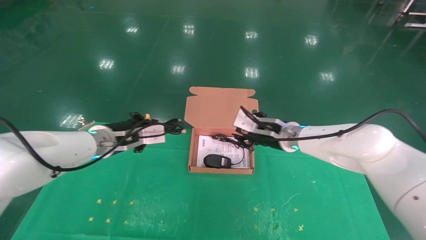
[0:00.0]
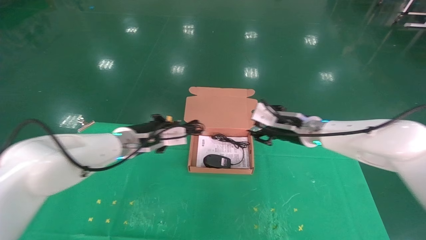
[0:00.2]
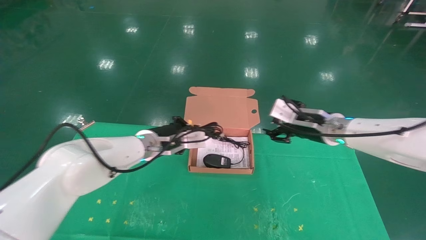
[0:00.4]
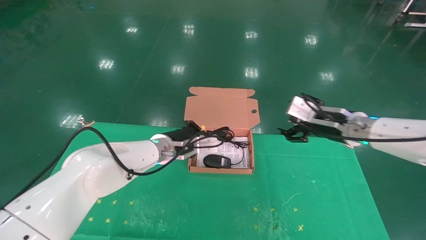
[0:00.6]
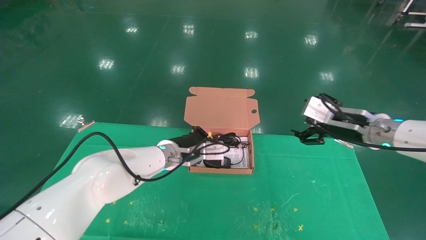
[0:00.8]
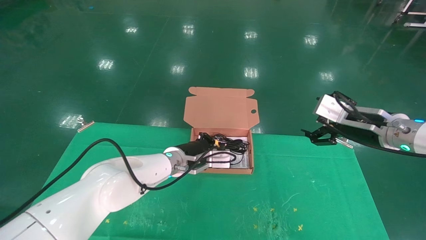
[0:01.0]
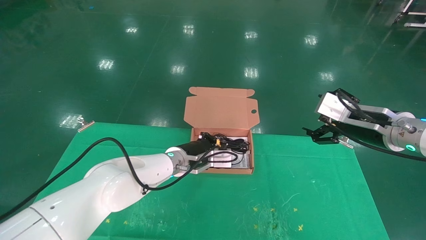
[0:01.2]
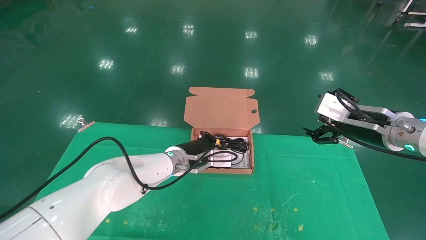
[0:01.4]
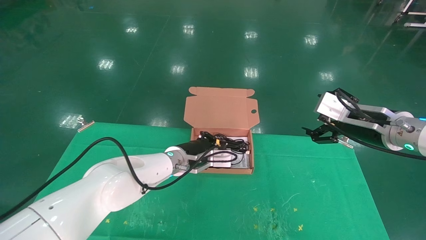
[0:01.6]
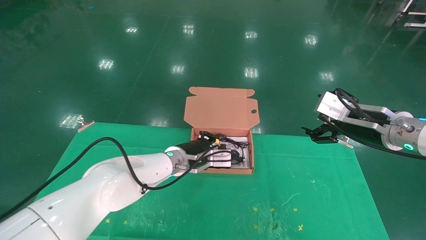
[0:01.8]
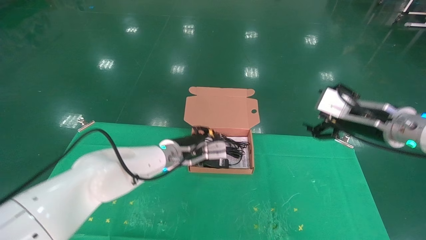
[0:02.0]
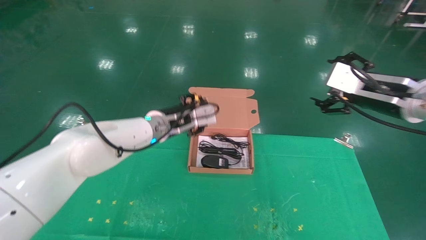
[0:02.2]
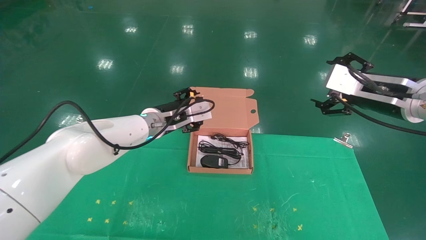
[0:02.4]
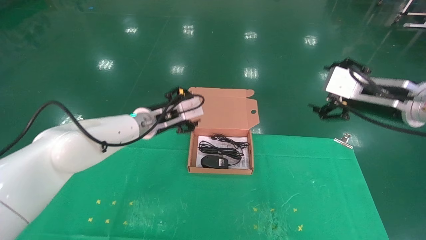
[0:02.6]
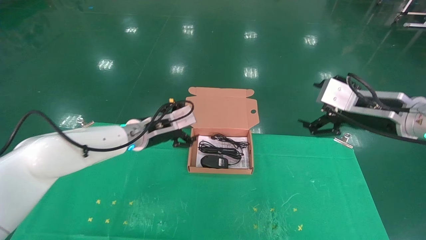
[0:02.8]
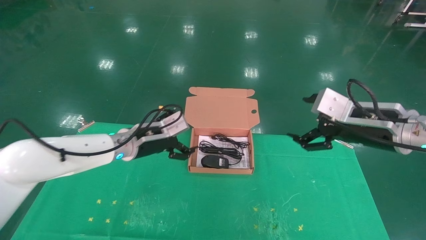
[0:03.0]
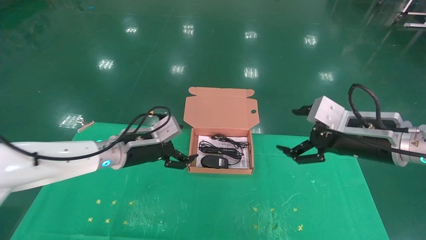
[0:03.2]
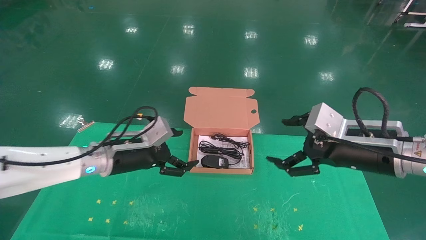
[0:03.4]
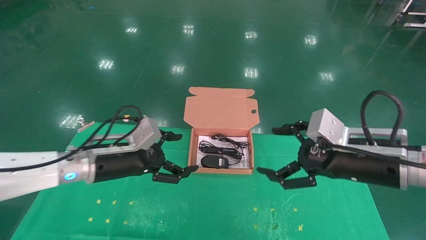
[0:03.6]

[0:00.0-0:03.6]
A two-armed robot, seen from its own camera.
Task of the whole recording: grasp data cable left put into box grasp mouse right put into box.
0:00.0 to 0:01.8: The left gripper is displaced to the right and downward by roughly 15 cm. Meanwhile the right gripper is displaced to the right, backward and upward by some 20 cm, and opens.
0:01.8 to 0:03.6: The left gripper shifts about 15 cm to the left and backward, and opens up, while the right gripper is displaced backward and to the left by roughly 10 cm.

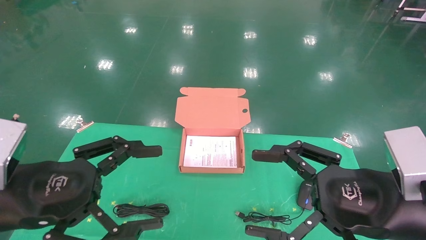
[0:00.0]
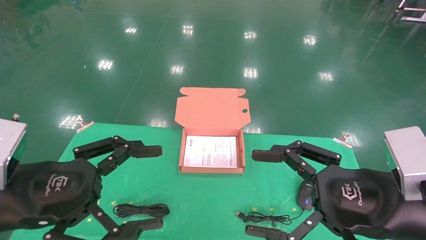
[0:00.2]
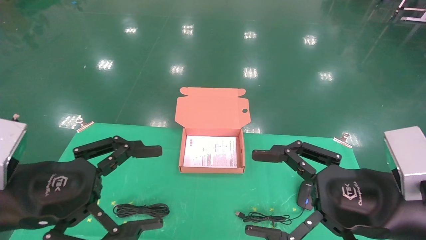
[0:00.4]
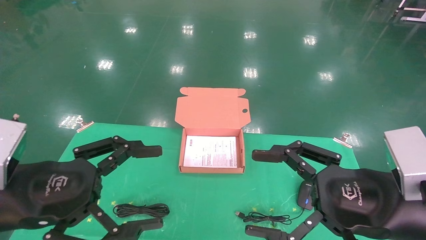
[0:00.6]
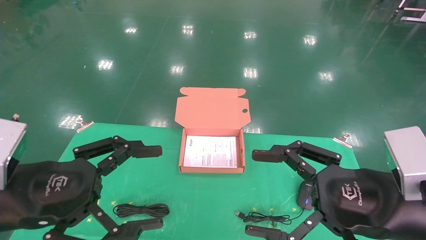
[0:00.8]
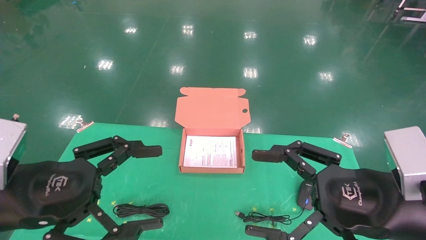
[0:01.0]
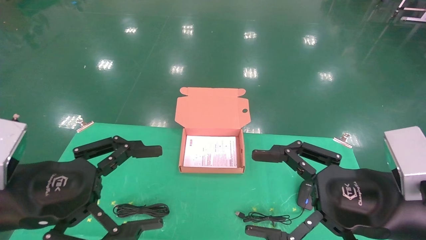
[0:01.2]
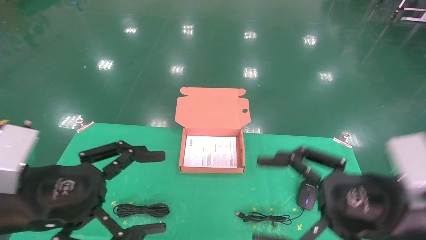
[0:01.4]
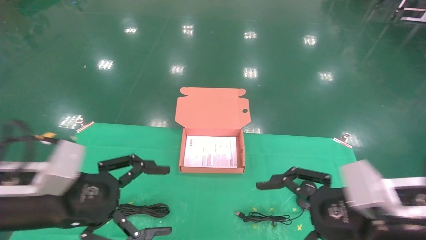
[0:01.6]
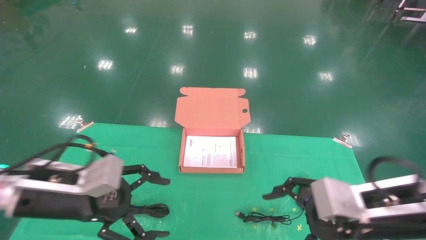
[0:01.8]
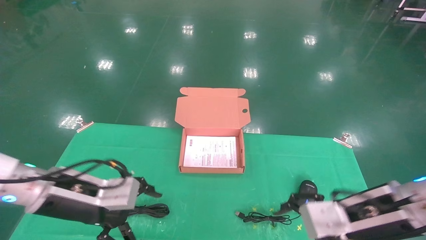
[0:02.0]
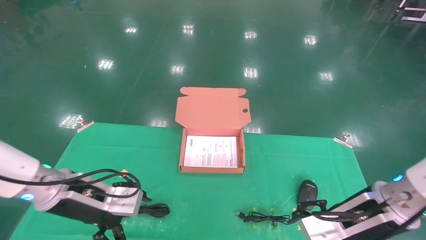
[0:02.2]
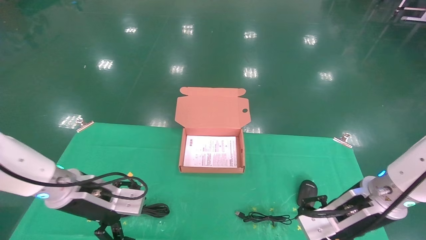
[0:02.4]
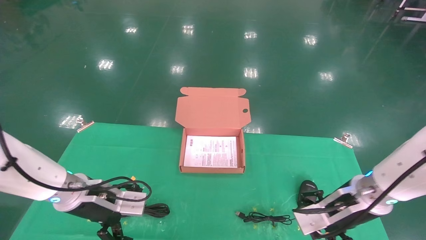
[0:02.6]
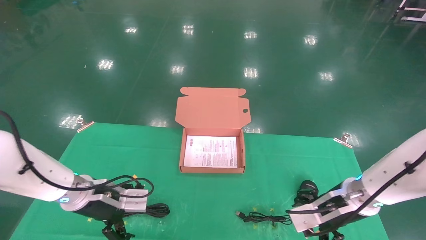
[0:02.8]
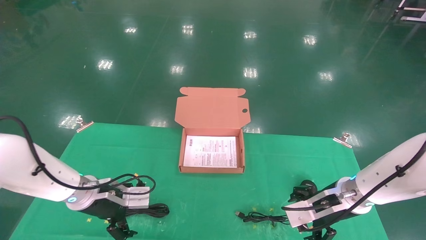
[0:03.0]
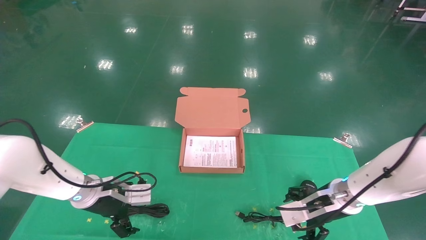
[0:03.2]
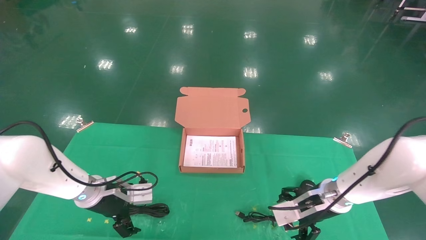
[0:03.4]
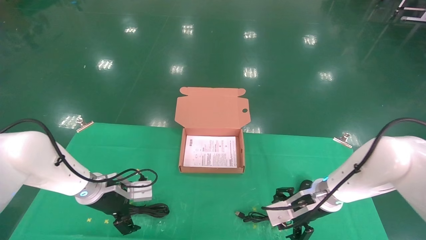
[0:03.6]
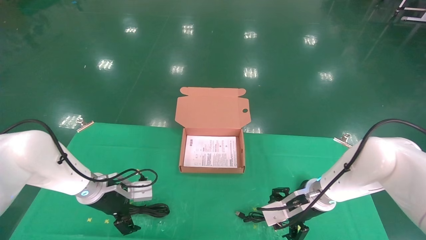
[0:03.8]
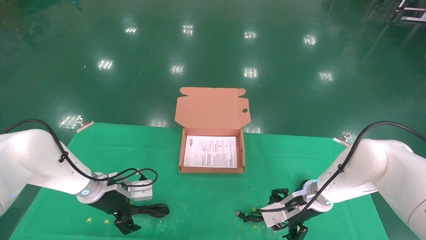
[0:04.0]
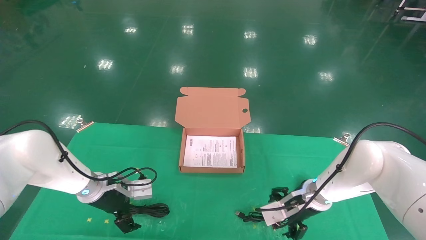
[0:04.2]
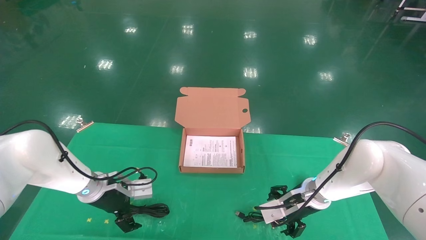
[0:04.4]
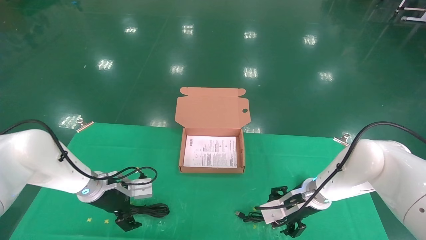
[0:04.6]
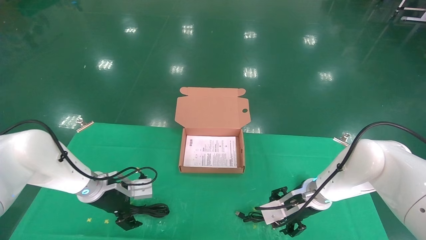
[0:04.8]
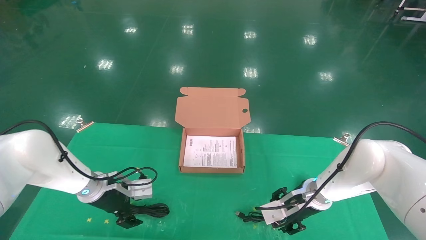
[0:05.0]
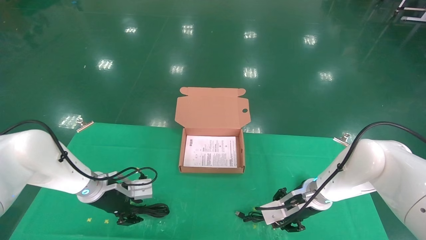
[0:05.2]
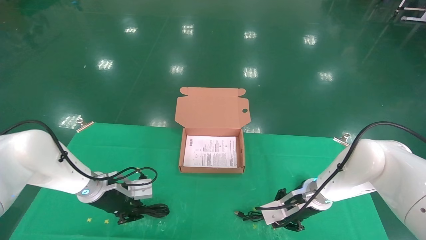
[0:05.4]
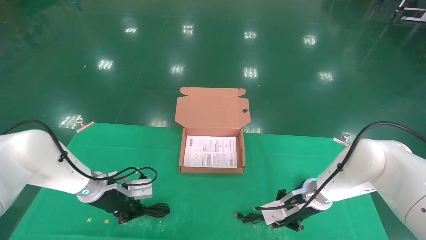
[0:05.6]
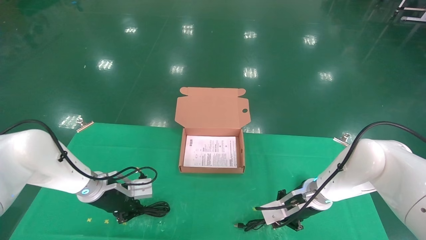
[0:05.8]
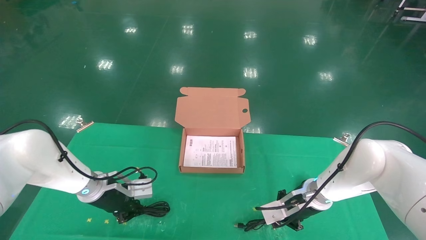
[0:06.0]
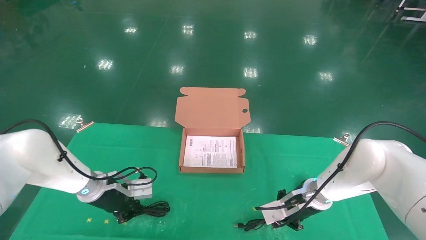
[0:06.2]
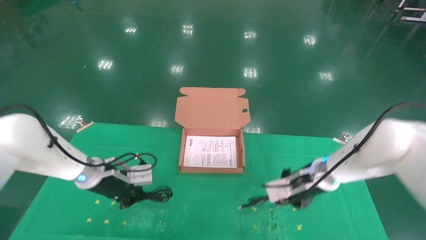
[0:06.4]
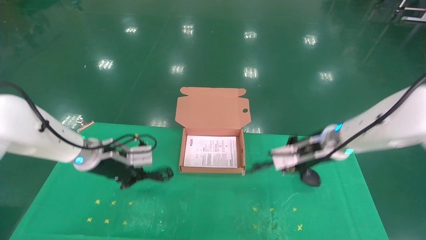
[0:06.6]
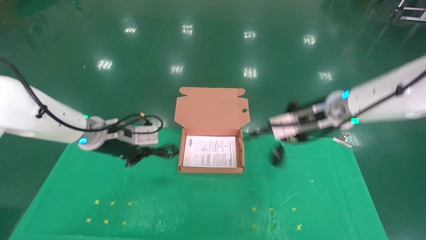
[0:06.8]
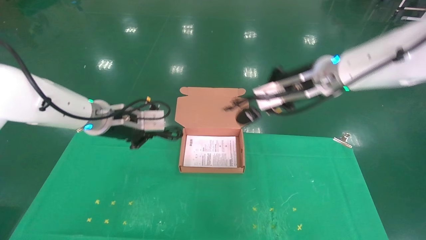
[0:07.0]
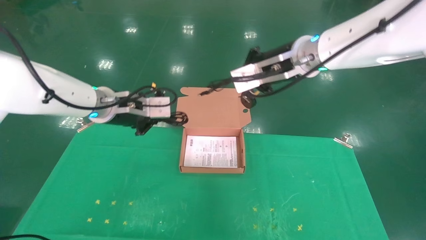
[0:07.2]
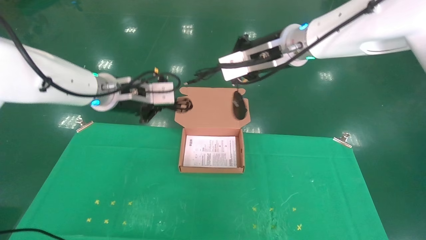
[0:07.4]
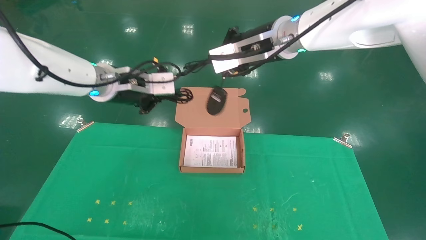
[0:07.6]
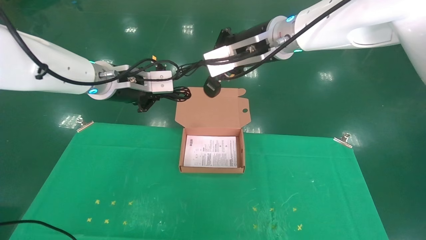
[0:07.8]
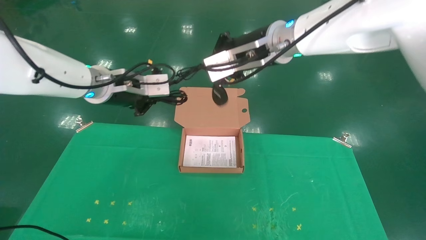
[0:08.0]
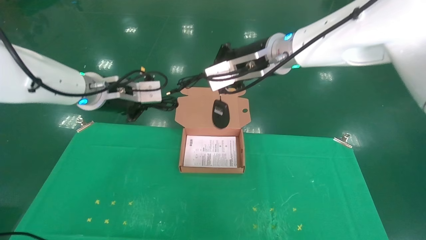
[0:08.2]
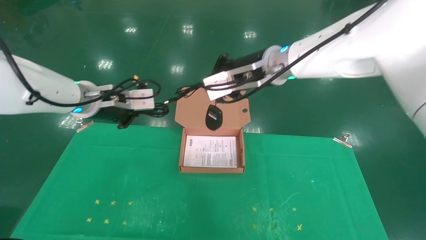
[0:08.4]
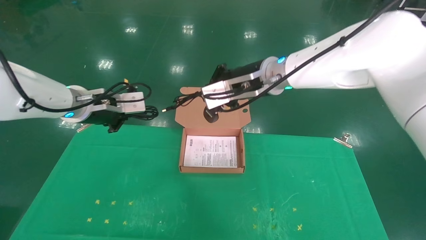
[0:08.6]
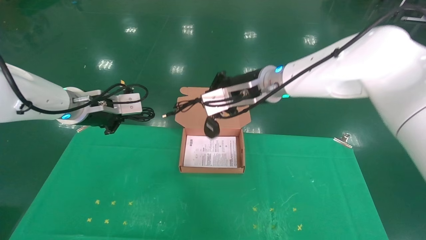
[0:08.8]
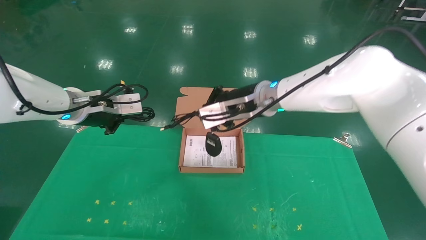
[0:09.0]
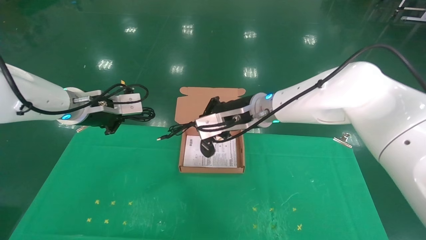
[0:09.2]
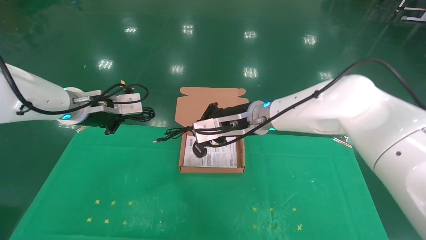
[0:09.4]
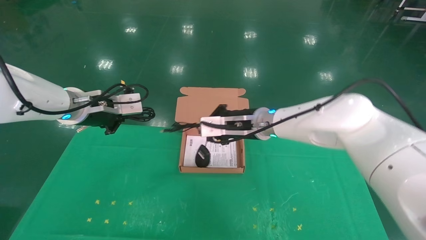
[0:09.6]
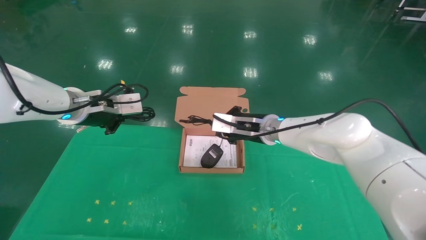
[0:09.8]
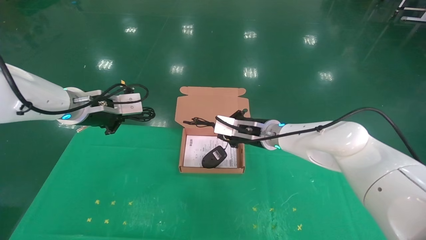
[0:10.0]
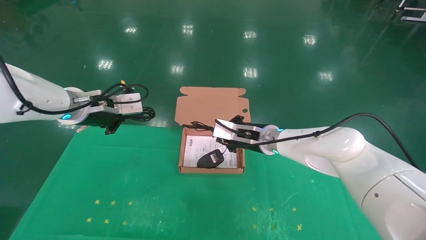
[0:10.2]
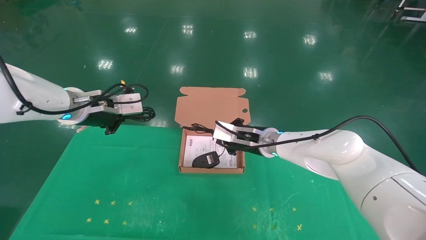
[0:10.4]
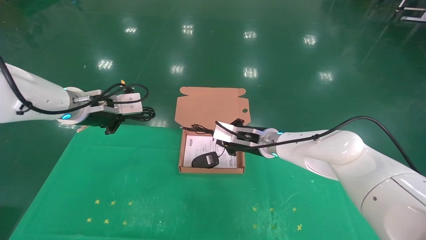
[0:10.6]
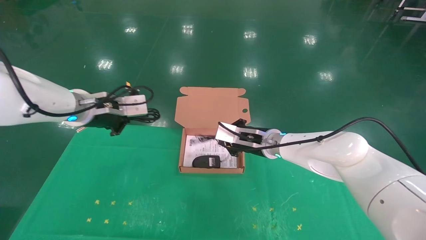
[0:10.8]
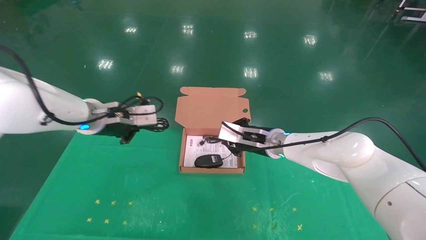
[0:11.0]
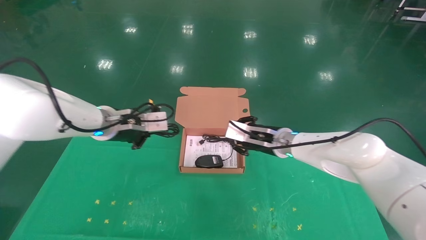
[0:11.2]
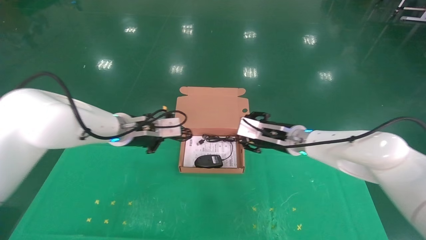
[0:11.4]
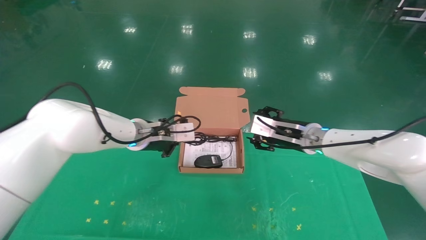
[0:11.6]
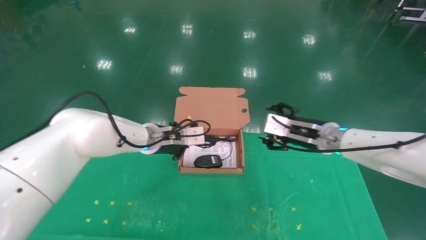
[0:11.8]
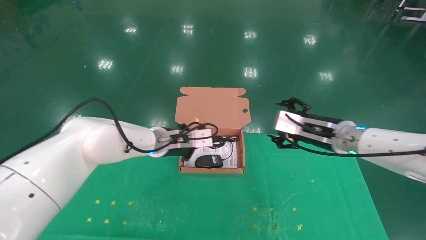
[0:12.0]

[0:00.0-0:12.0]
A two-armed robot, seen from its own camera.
Task of the whole recording: grasp data cable left put into box grasp mouse right put into box.
Step, 0:02.4 to 0:06.8: Grab and pick up both the mouse and power cord from the accessory packaging area at the same time.
0:01.6 to 0:03.0: The grippers both shift forward and downward by some 20 cm.
0:03.0 to 0:04.4: The right gripper goes roughly 5 cm forward. Meanwhile the left gripper shifts by roughly 5 cm.
0:04.4 to 0:06.0: The right gripper closes up. Meanwhile the left gripper closes its fingers.
0:06.0 to 0:07.6: The two grippers go about 30 cm upward.
0:07.6 to 0:09.0: The left gripper goes roughly 5 cm to the left; the right gripper heads downward, covering roughly 10 cm.
0:09.0 to 0:10.4: The right gripper shifts some 15 cm downward.
0:10.4 to 0:12.0: The right gripper goes about 15 cm to the right and backward, and opens up; the left gripper shifts about 20 cm to the right, downward and forward.

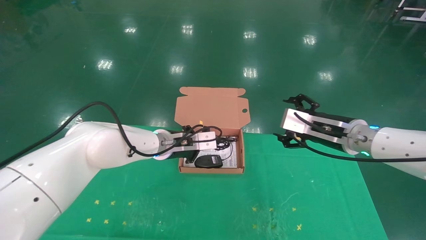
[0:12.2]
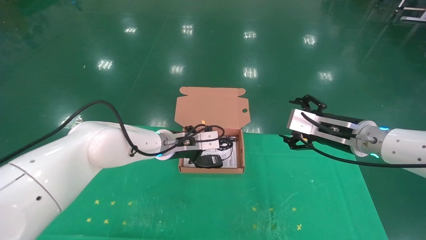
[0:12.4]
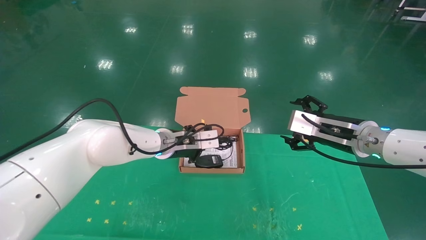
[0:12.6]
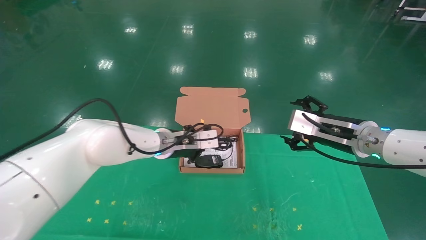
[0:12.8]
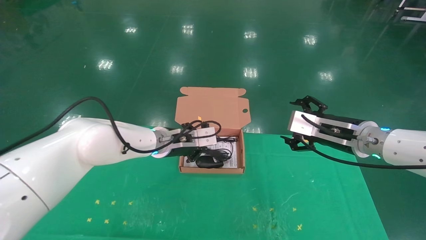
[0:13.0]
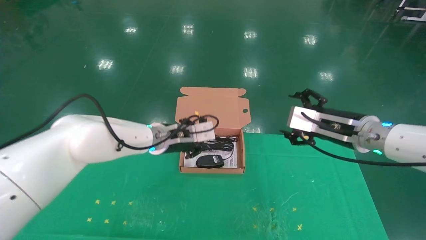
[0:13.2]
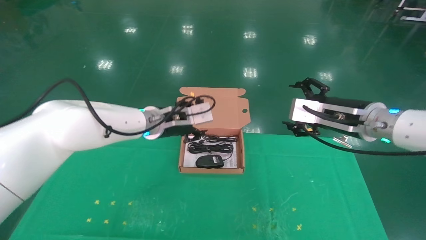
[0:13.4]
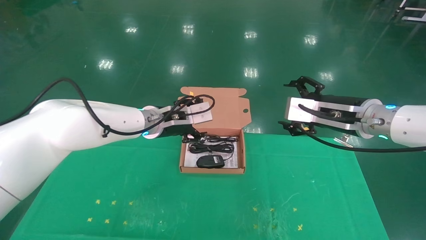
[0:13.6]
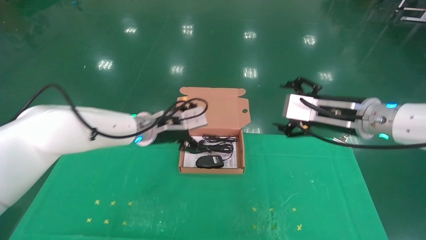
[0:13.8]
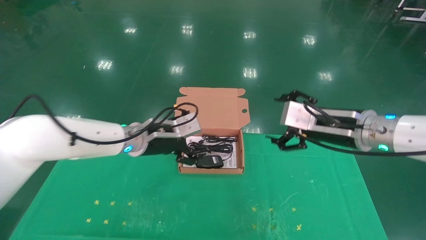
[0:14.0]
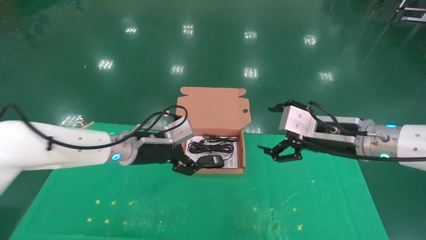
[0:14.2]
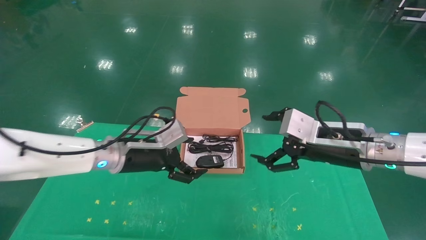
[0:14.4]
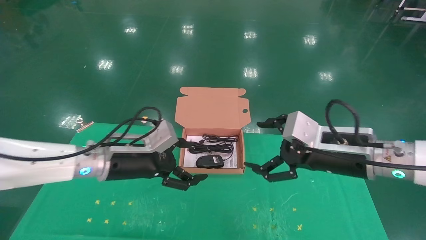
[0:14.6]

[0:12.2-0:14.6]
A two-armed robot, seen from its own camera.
Task of the whole recording: grasp data cable left put into box grasp mouse right put into box.
0:12.2 to 0:13.4: The left gripper heads upward, covering some 5 cm, and opens.
0:13.4 to 0:14.6: The left gripper travels backward and to the left by approximately 10 cm, and opens up. Meanwhile the right gripper is displaced backward by some 5 cm.
